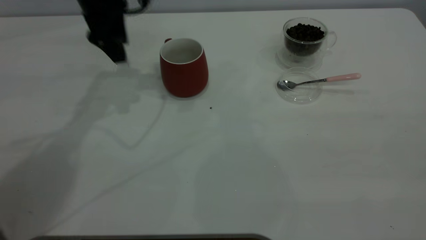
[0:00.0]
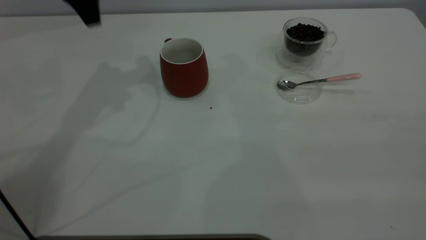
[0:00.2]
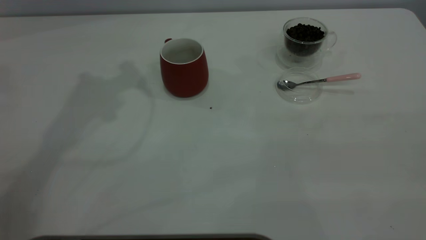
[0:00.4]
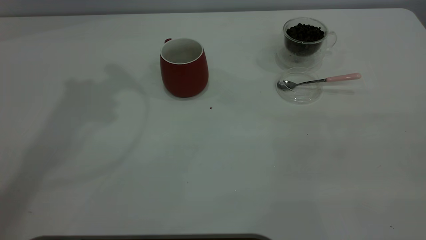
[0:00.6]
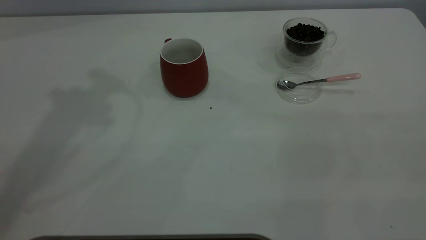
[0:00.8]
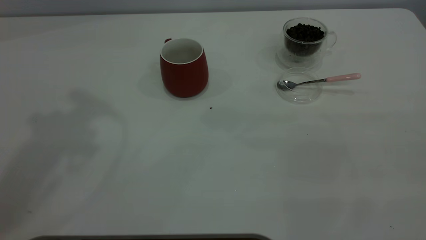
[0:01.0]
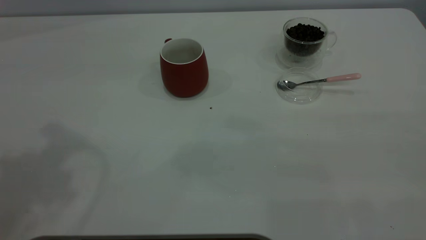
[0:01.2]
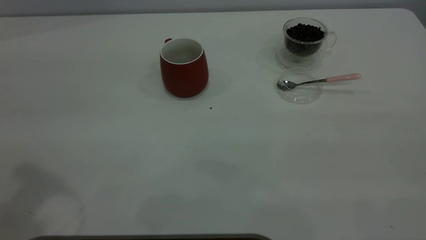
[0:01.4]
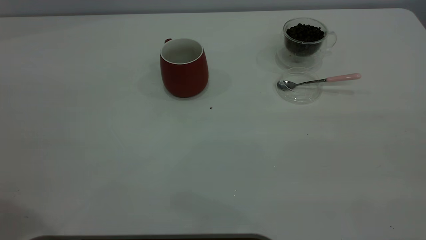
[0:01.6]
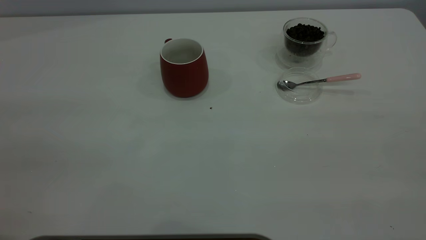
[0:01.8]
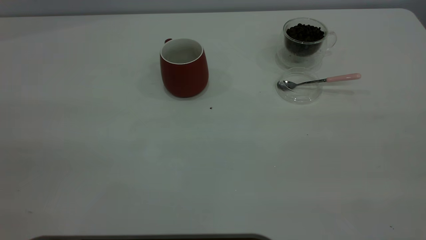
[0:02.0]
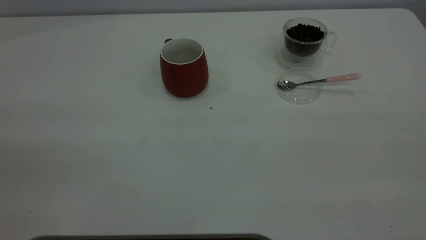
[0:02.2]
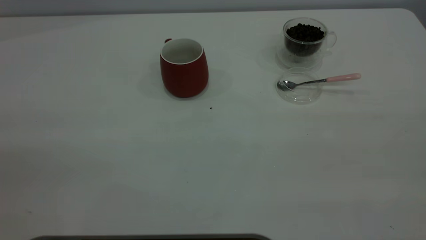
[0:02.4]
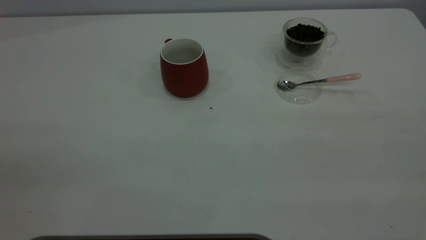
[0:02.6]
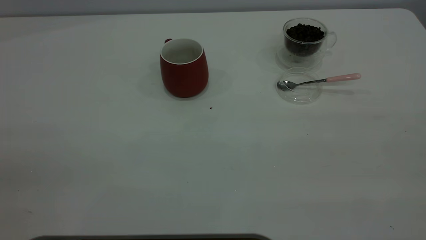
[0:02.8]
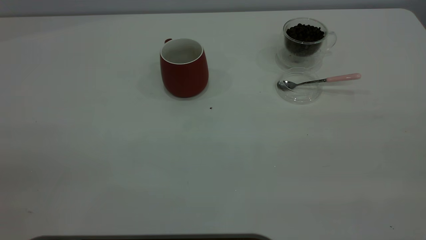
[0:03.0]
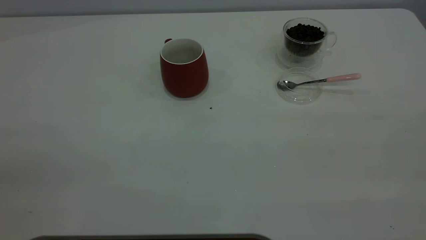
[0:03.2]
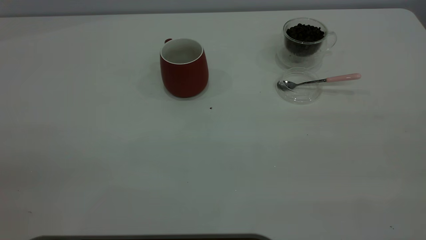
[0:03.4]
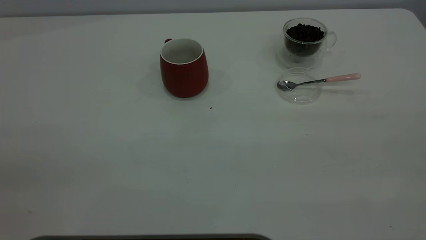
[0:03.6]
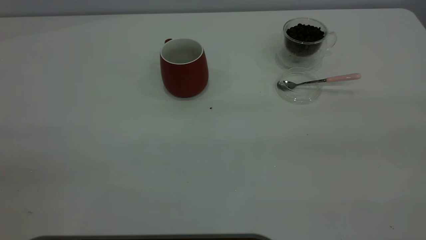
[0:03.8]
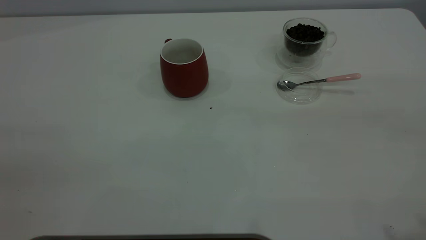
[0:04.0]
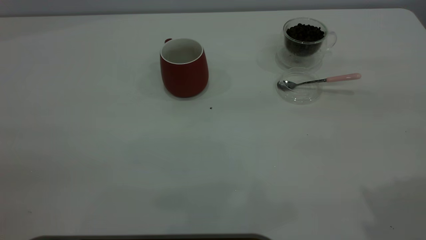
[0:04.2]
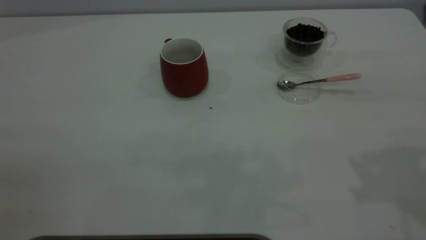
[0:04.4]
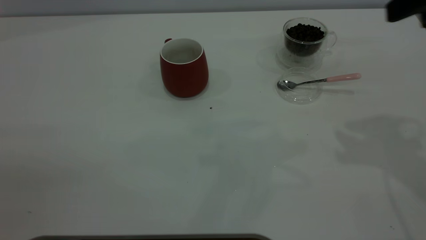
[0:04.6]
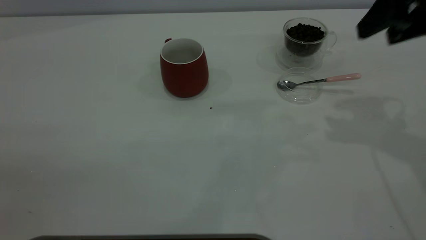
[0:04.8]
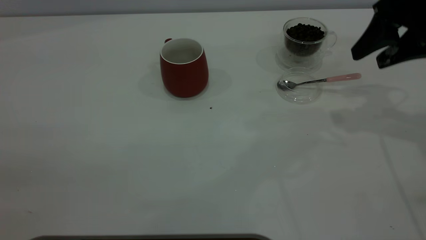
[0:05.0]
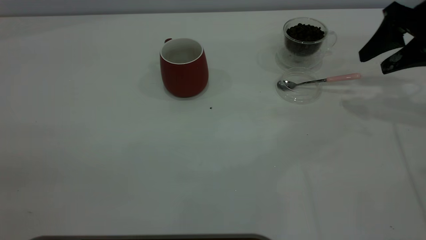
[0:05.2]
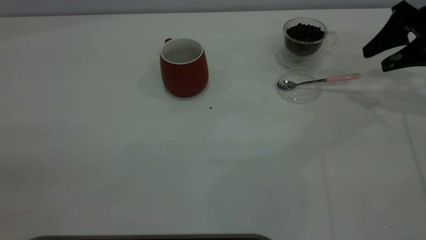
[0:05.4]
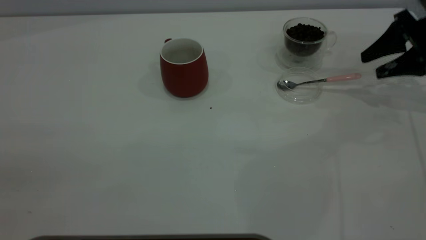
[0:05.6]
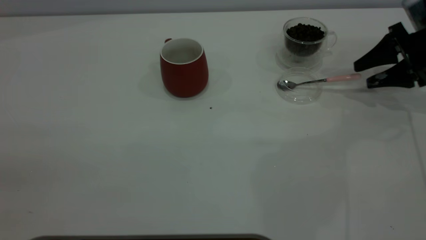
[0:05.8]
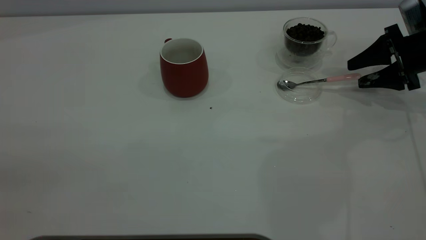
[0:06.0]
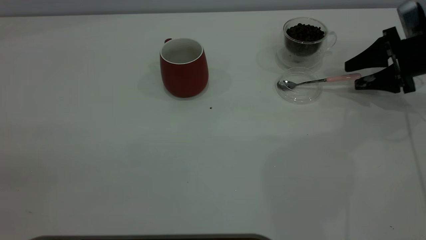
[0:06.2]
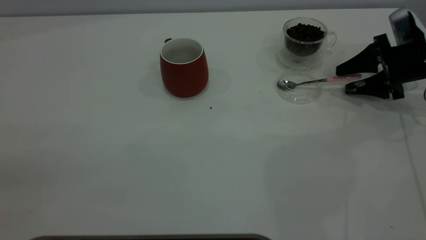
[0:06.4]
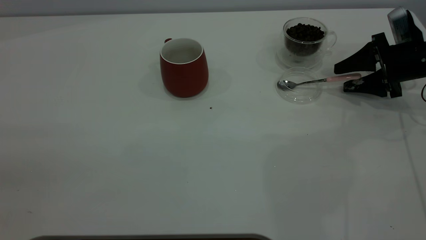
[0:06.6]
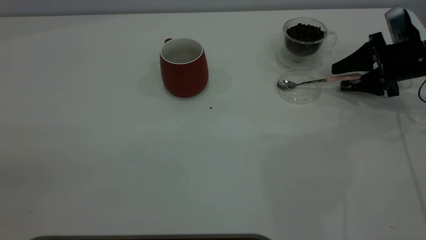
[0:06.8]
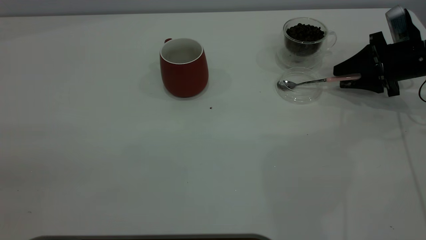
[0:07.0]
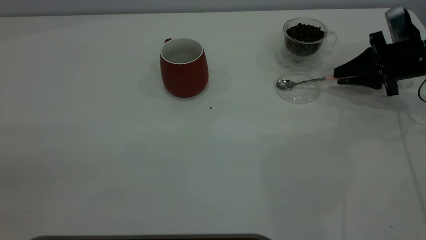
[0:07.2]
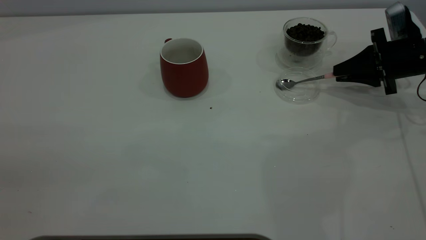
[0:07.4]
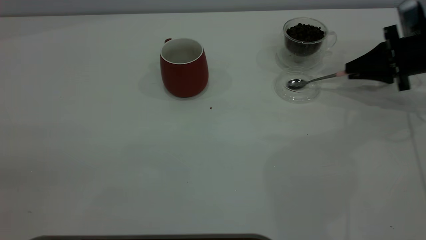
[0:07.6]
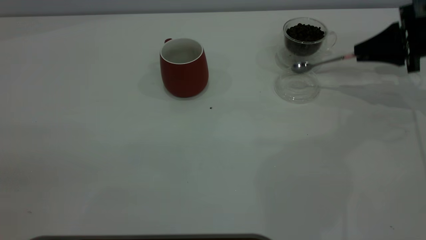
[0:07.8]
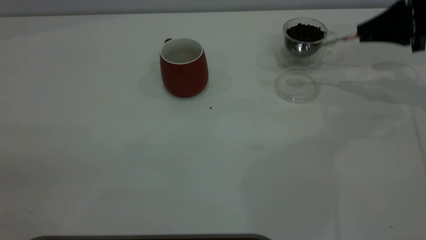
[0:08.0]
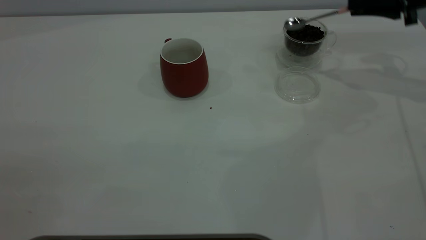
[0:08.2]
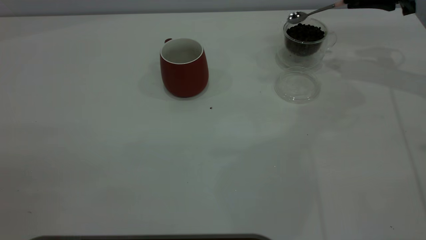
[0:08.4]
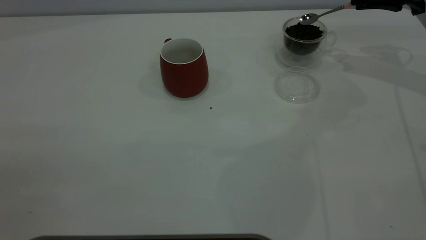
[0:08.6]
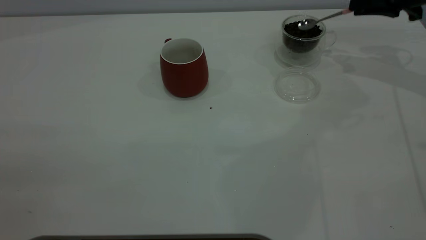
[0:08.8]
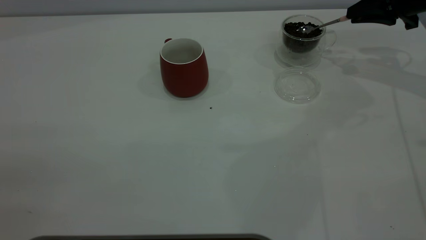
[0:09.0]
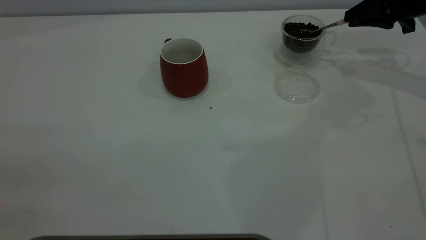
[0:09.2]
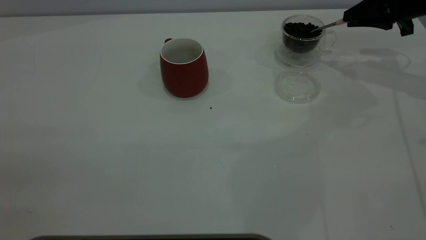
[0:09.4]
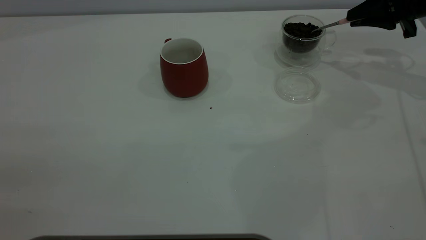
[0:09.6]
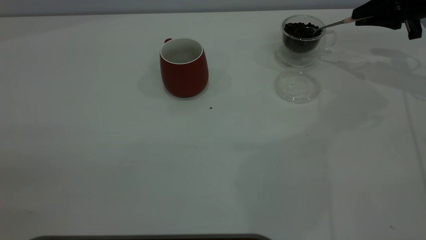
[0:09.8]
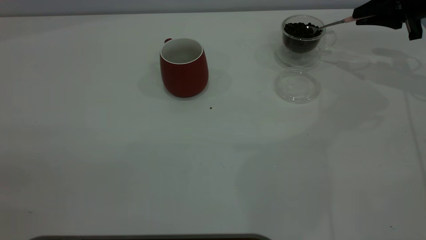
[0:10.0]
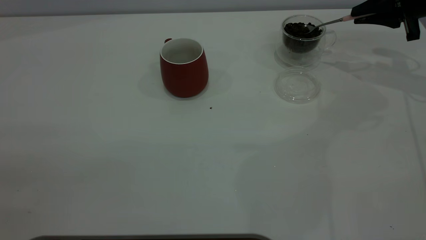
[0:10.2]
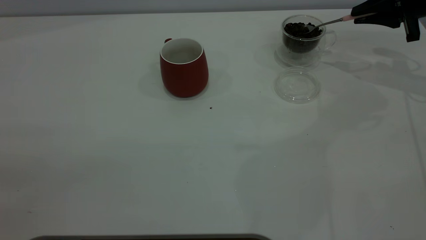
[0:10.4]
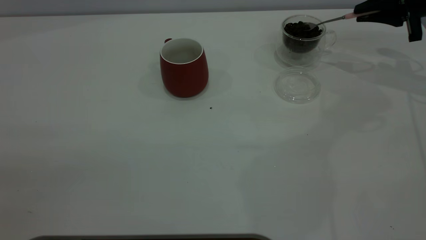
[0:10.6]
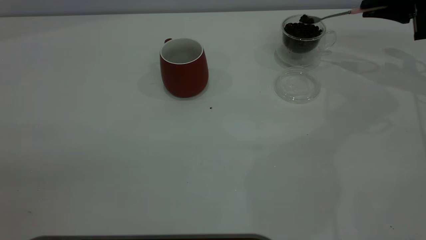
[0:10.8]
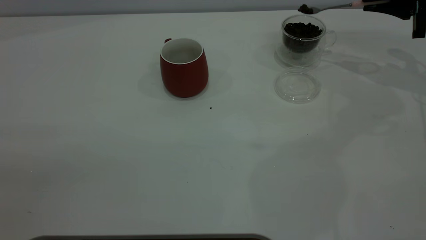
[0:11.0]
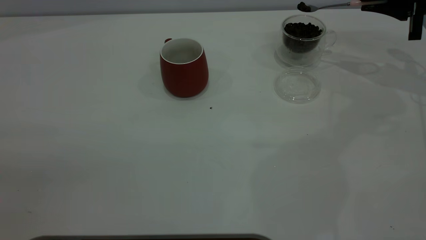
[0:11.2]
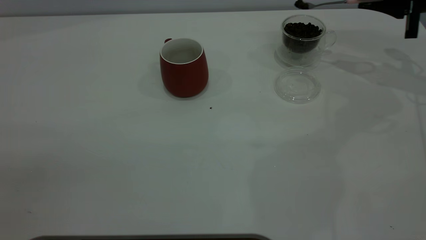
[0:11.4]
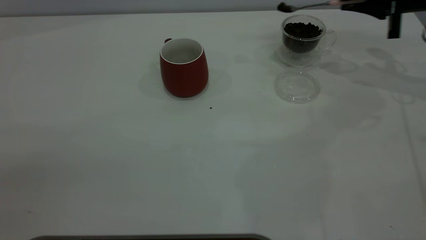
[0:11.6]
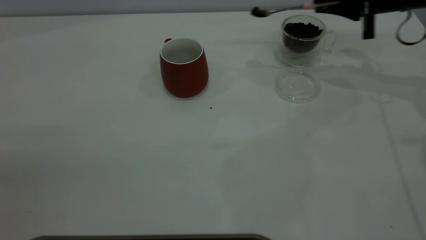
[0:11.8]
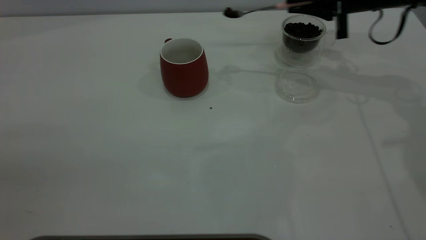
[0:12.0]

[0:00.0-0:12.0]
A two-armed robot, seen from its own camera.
Task of the whole recording: the left gripper place the red cup in the center of the table, the right gripper take the pink spoon from the cup lid and scoop out the coffee beans from the coffee cup and put them into the red cup, the right gripper put the spoon back into the cup lid.
Step, 0:00.0 to 0:07.6: Pick up the spoon.
0:00.0 to 0:01.6: The left gripper goes some 35 cm backward.
0:04.4 to 0:06.0: The right gripper travels downward and forward by roughly 30 cm.
0:06.0 to 0:07.6: The right gripper closes up.
0:07.6 to 0:09.0: The right gripper moves upward and forward, about 10 cm.
0:10.4 to 0:12.0: The right gripper heads to the left, covering approximately 10 cm.

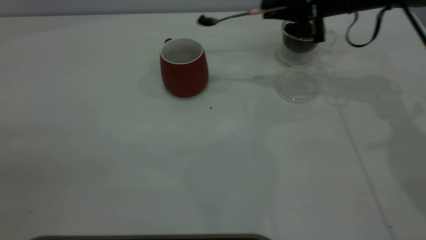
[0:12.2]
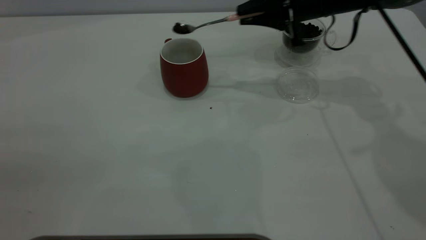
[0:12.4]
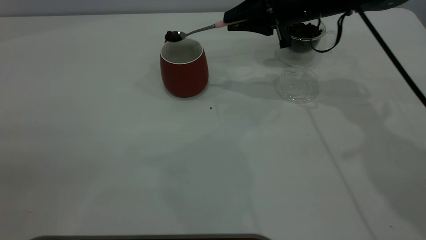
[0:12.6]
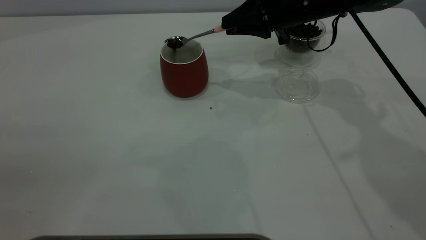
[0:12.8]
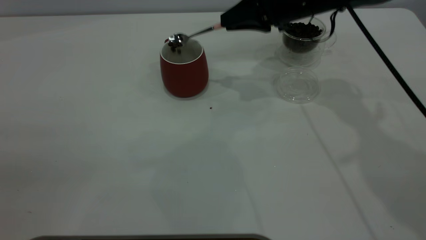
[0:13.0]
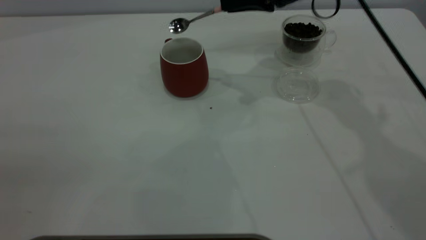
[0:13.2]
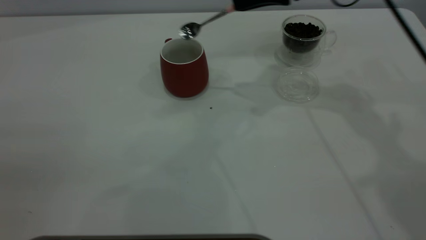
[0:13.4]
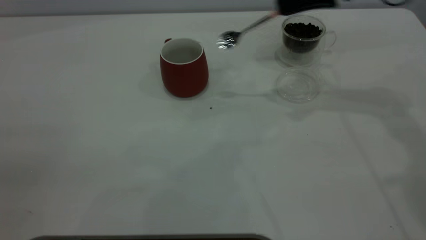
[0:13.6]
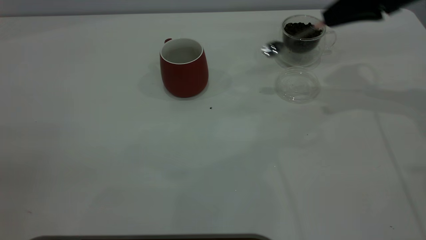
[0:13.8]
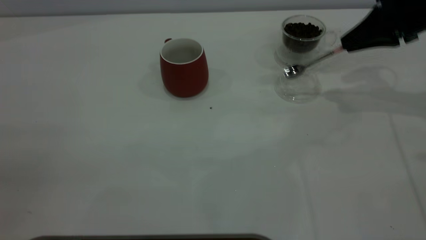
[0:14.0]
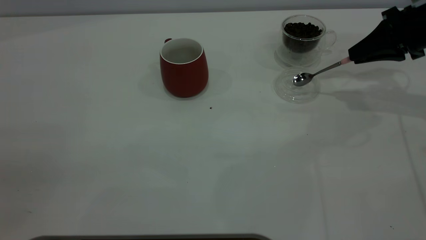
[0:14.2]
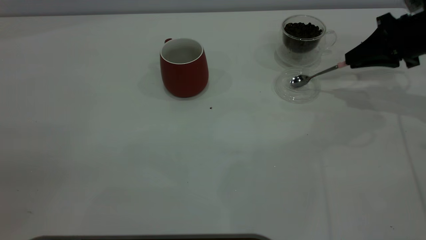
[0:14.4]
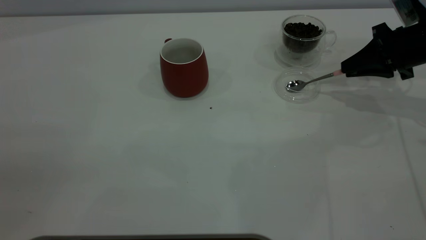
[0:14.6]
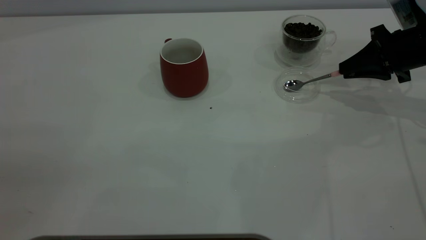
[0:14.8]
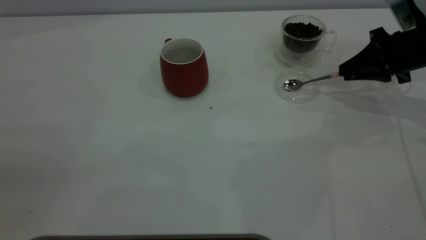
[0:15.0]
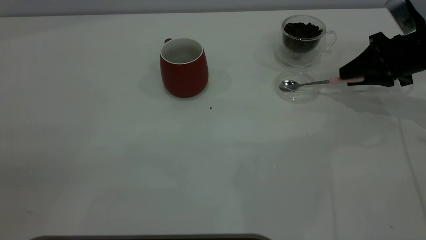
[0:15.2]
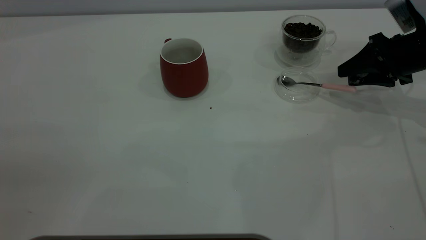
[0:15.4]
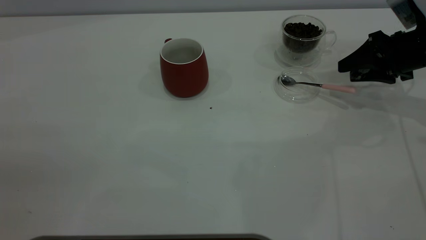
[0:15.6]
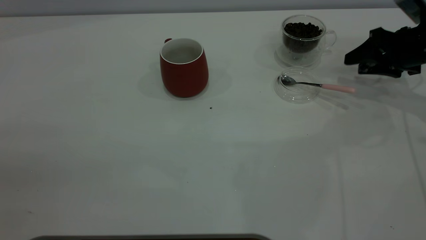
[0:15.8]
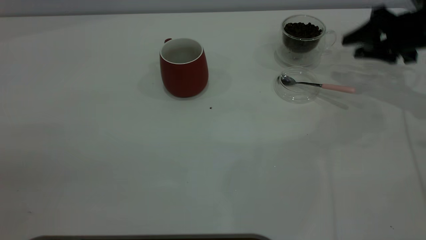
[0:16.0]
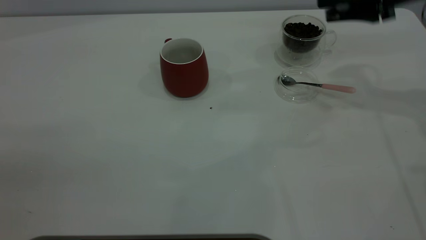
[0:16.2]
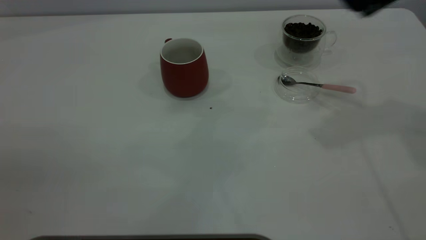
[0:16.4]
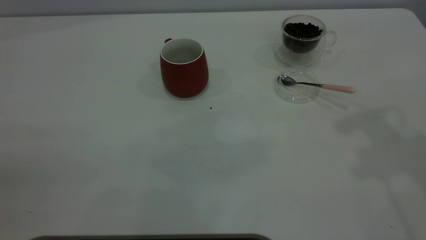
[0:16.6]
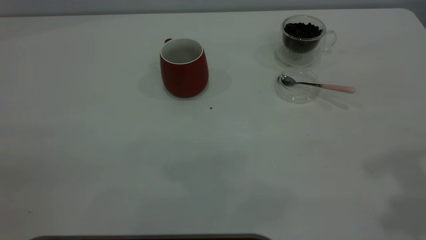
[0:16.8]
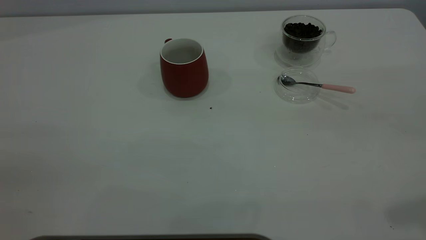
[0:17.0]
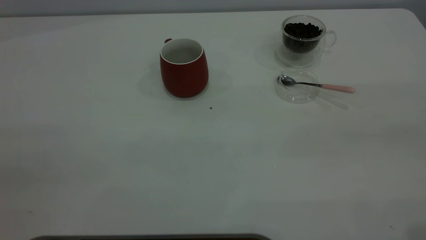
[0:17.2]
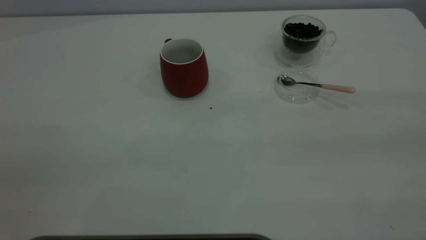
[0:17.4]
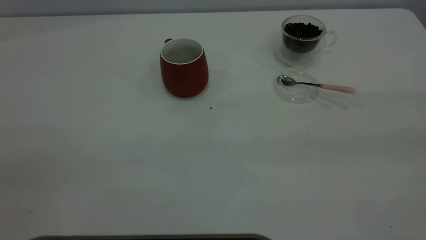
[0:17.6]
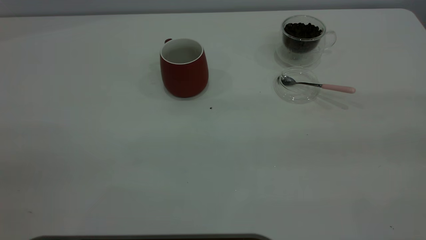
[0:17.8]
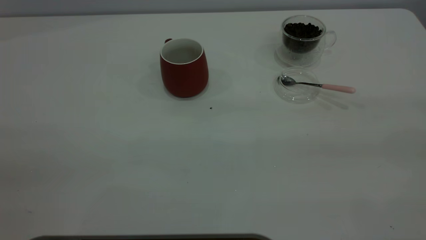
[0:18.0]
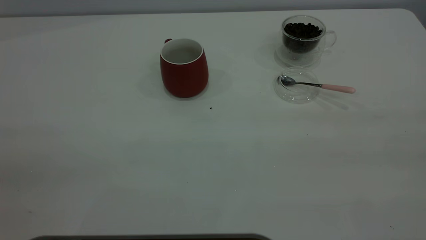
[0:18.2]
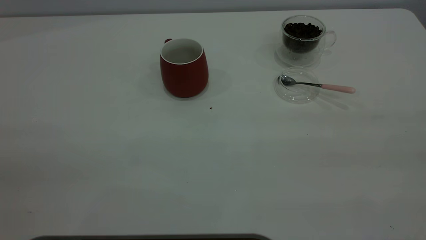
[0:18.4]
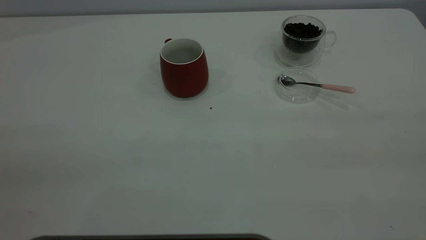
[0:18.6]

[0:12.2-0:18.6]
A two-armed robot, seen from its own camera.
Task of the whole recording: the left gripper place the red cup in the center of the table, the right gripper take the pink spoon from the cup lid and scoop out the coffee beans from the coffee cup and put them into the red cup, the right gripper put the spoon back into the cup lid.
Step, 0:13.4 to 0:15.4: Place the spoon back in its original place.
0:12.2 to 0:13.8: The right gripper is displaced to the right by approximately 10 cm.
0:13.8 to 0:15.4: The right gripper heads downward, covering approximately 10 cm, and opens up.
0:15.4 to 0:17.0: The right gripper goes some 40 cm upward and backward.
